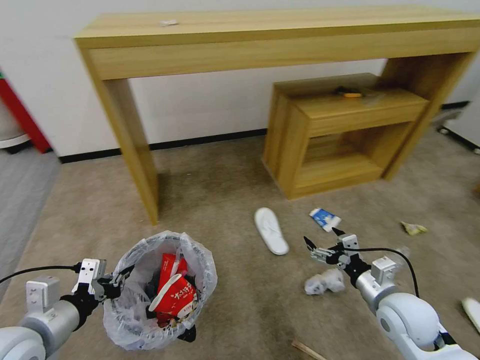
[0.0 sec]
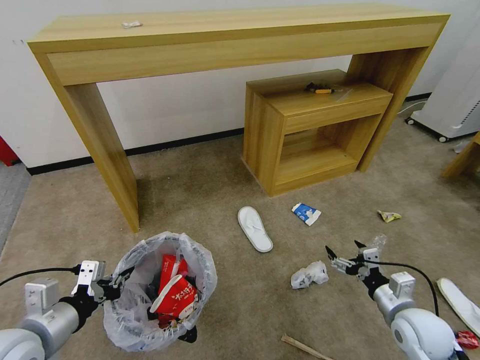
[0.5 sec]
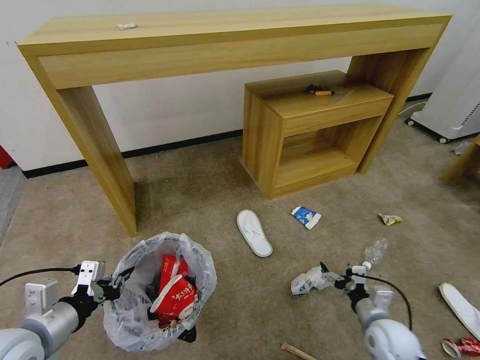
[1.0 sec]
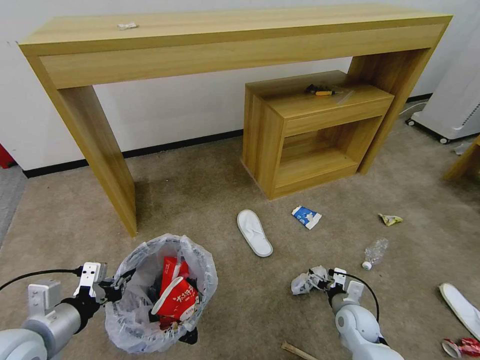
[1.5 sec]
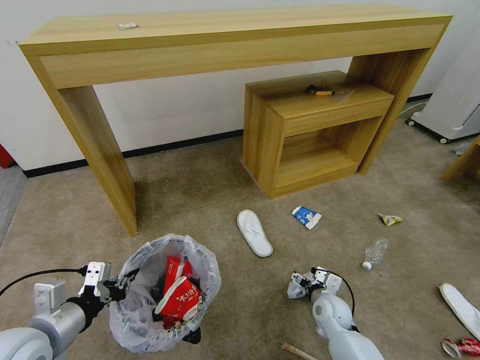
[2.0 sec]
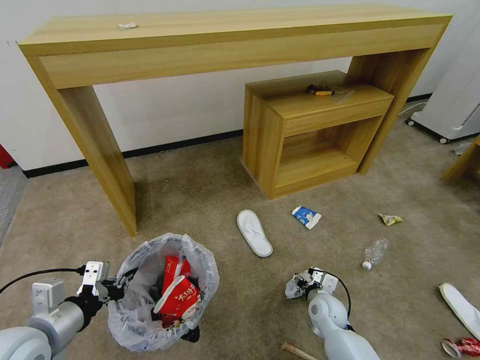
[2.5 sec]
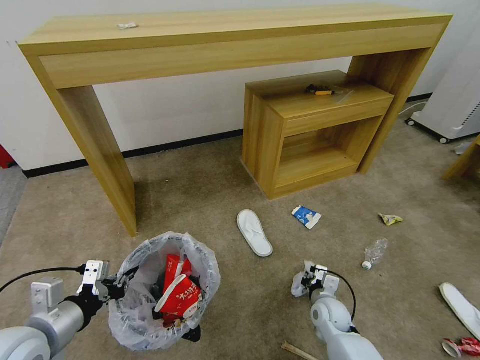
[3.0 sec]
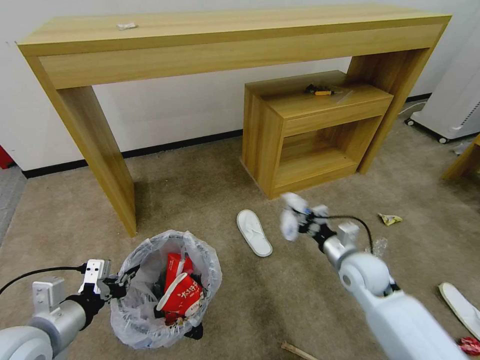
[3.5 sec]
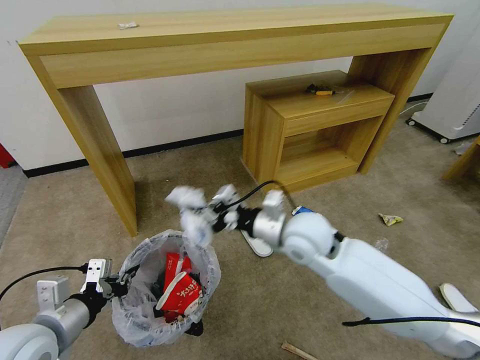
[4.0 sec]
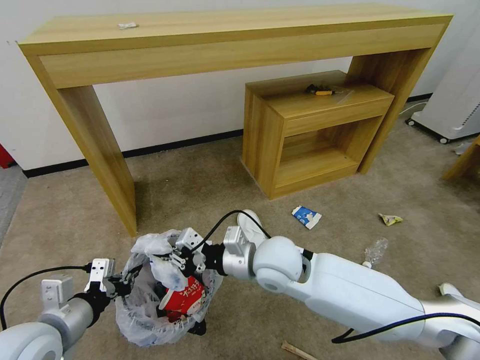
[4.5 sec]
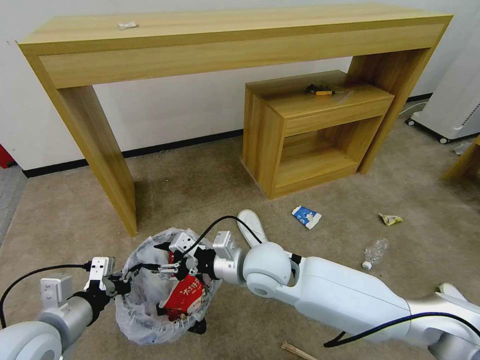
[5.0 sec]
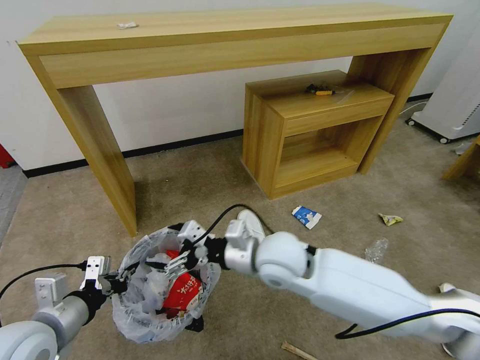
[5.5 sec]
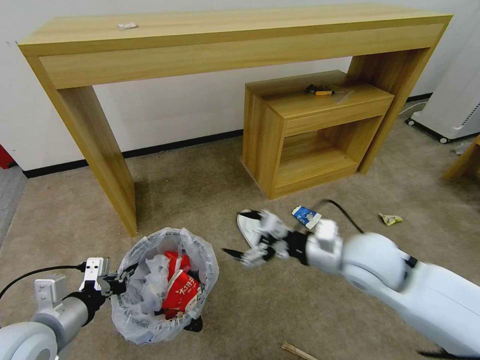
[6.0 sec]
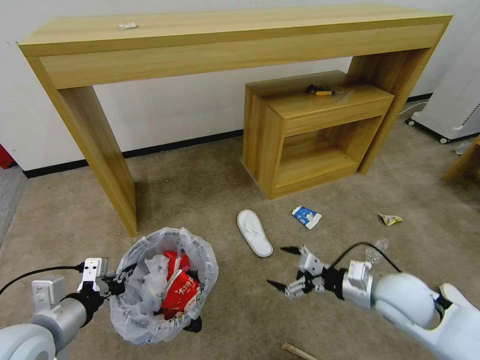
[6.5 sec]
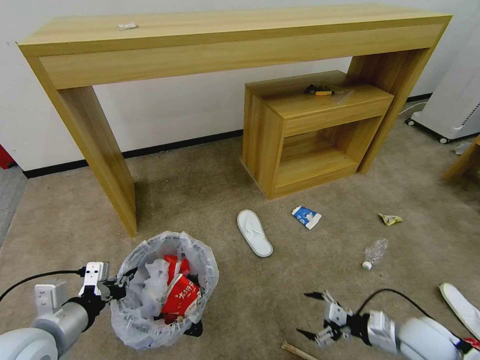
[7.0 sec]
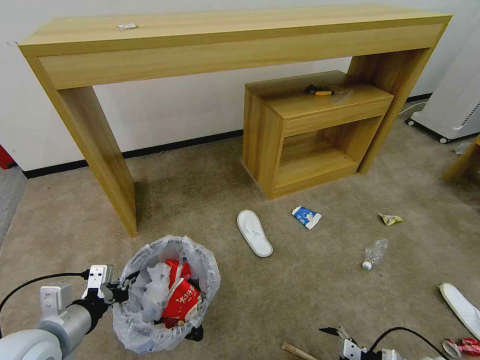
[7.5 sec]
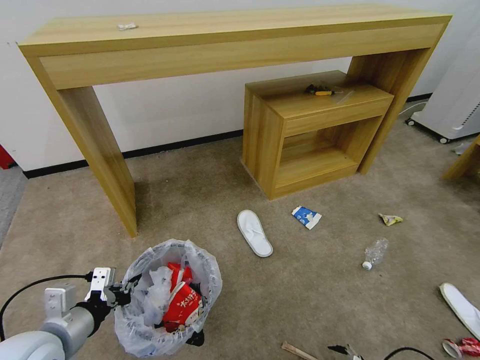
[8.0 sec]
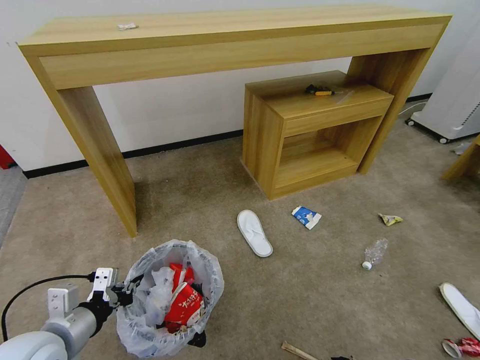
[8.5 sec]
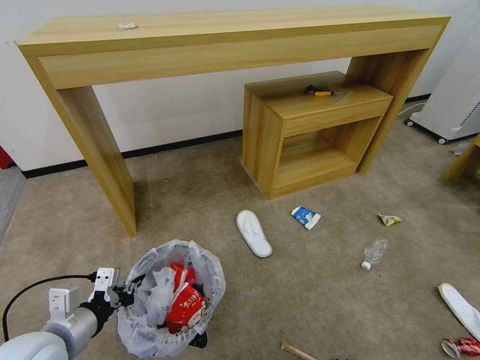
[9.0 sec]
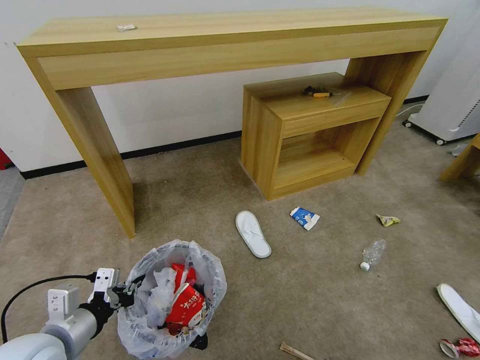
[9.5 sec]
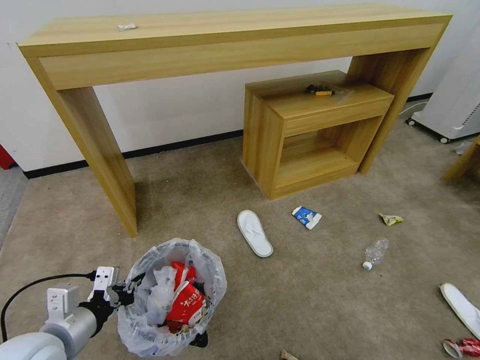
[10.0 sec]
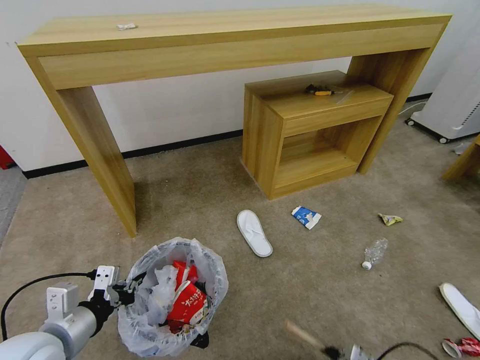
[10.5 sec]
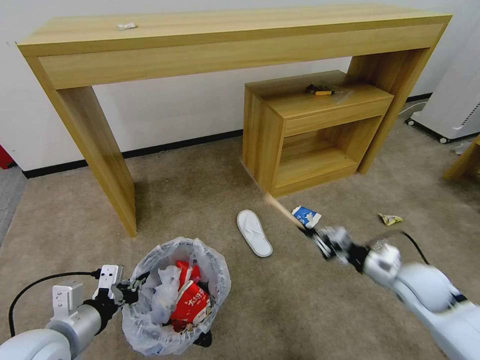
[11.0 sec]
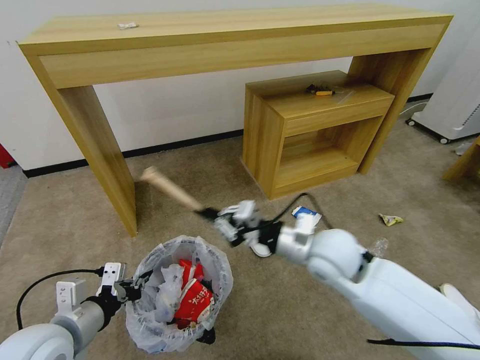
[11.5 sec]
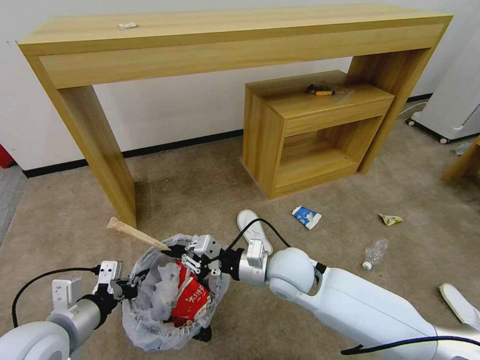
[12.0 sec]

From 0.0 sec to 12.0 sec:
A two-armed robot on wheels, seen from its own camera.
Task of the whole recording: Pick up the trash bin and place the garbage on the floor into it.
From 0.0 sec to 2.0 sec: The right gripper is displaced downward and to the left by roughly 20 cm.
From 2.0 sec to 4.0 sec: The right gripper goes approximately 30 cm upward and to the left, and closes up.
From 4.0 sec to 6.0 sec: The right gripper heads to the right and backward, covering approximately 10 cm, and opens up.
From 6.0 sec to 8.0 sec: The right gripper heads downward, to the right and backward, covering approximately 40 cm.
From 8.0 sec to 10.0 sec: The right gripper ends up some 5 cm from where it was, and closes.
From 10.0 sec to 12.0 sec: The right gripper goes about 50 cm to the left, upward and forward.

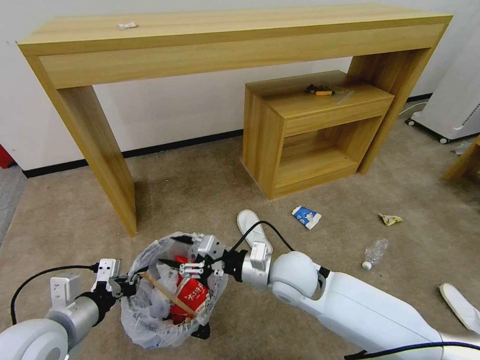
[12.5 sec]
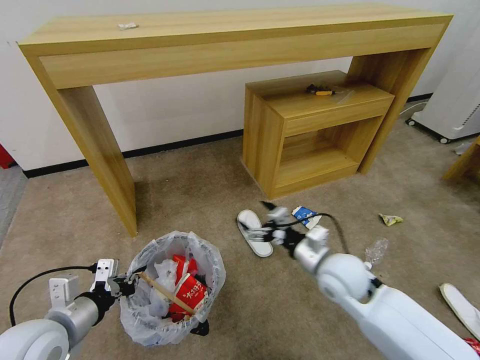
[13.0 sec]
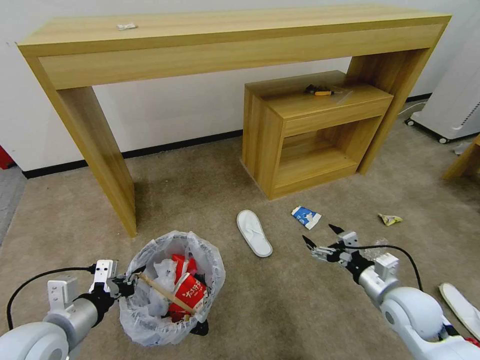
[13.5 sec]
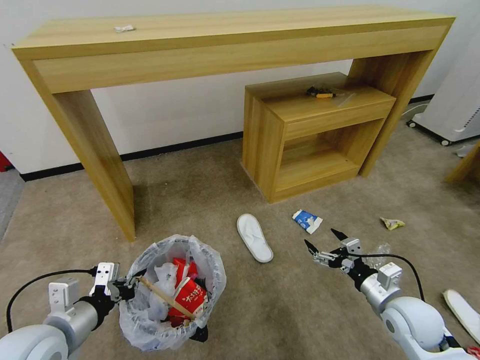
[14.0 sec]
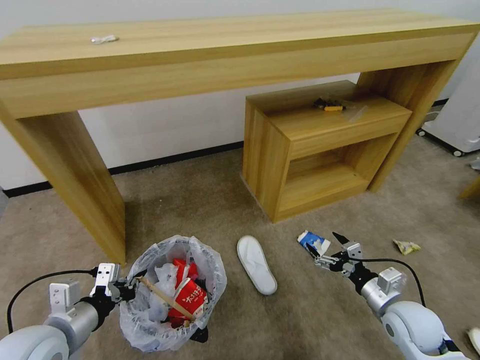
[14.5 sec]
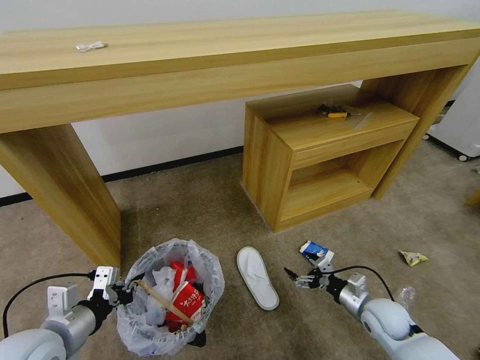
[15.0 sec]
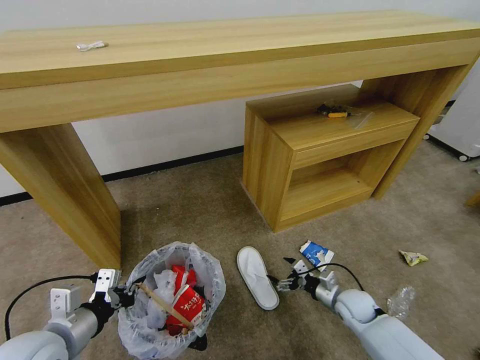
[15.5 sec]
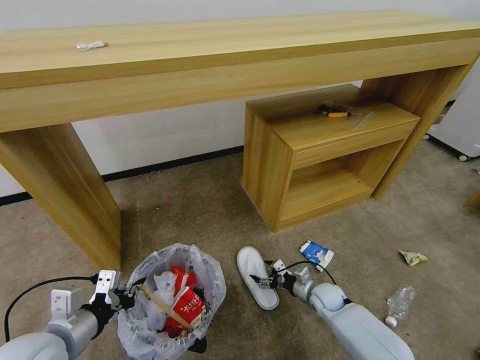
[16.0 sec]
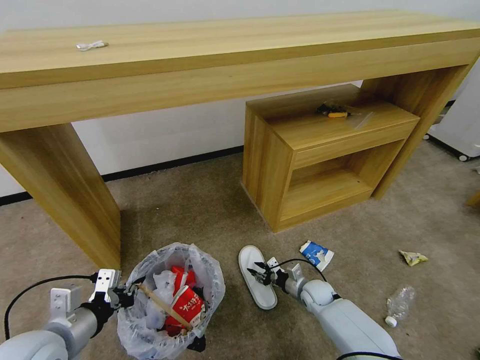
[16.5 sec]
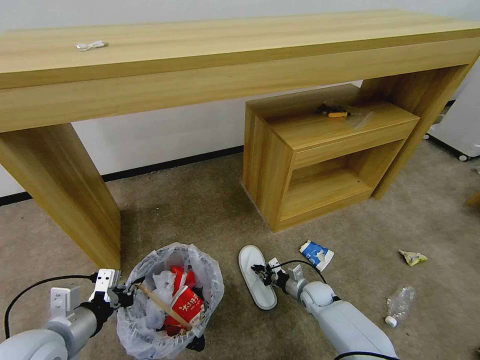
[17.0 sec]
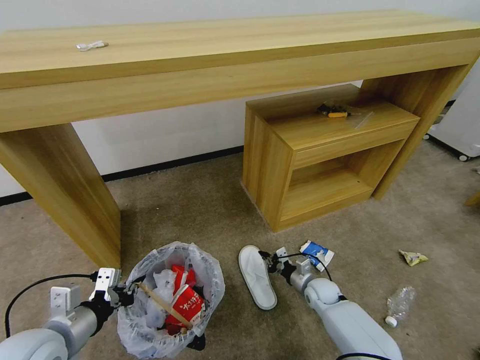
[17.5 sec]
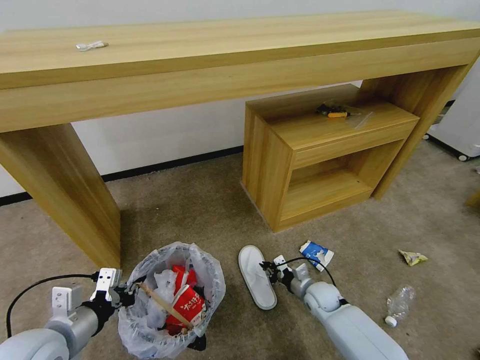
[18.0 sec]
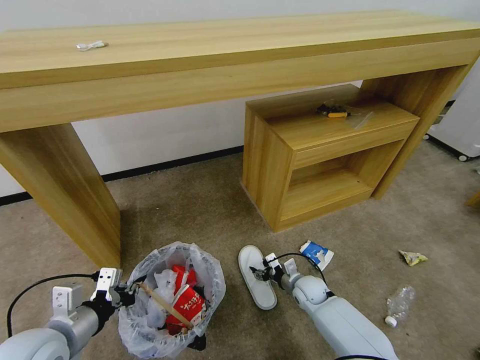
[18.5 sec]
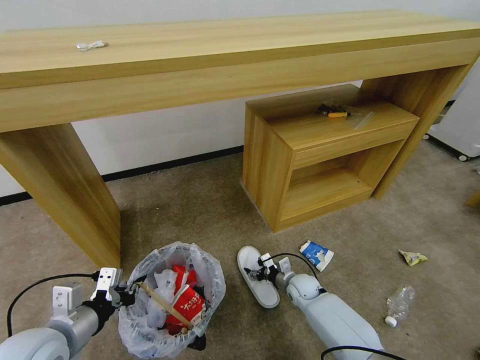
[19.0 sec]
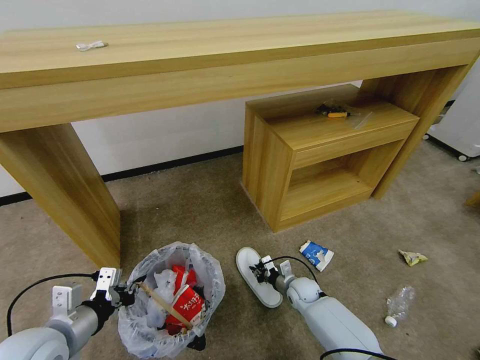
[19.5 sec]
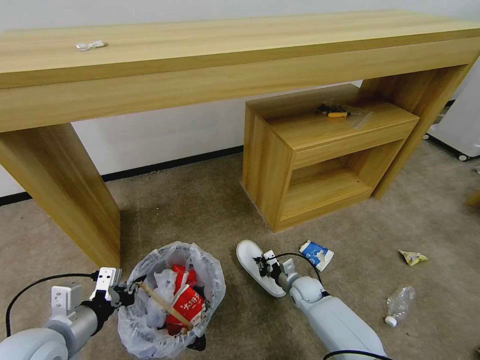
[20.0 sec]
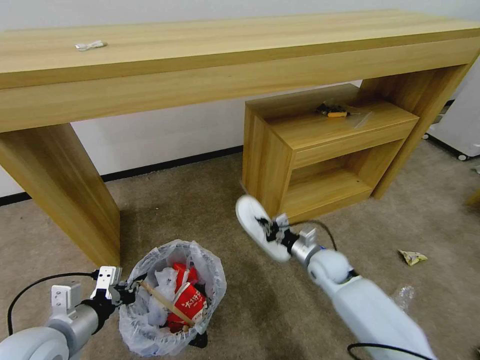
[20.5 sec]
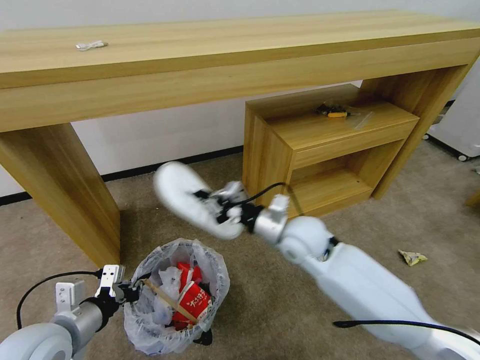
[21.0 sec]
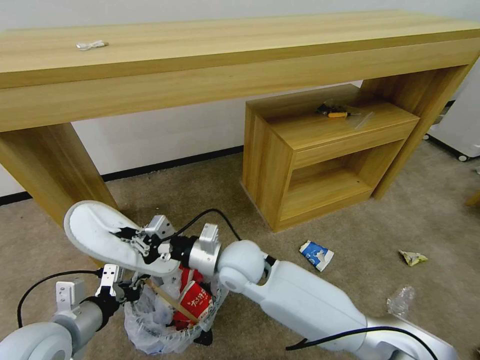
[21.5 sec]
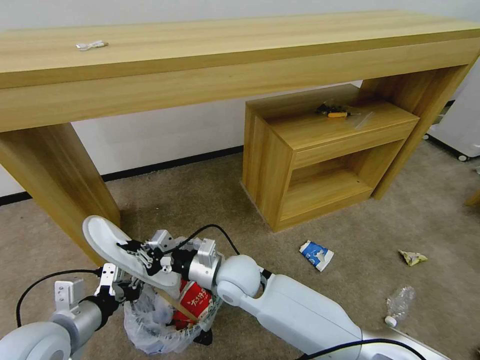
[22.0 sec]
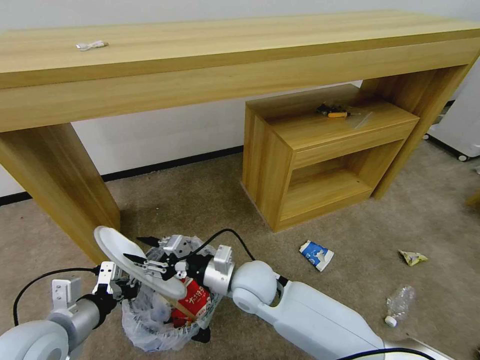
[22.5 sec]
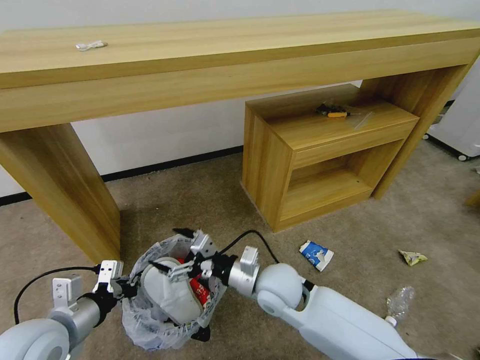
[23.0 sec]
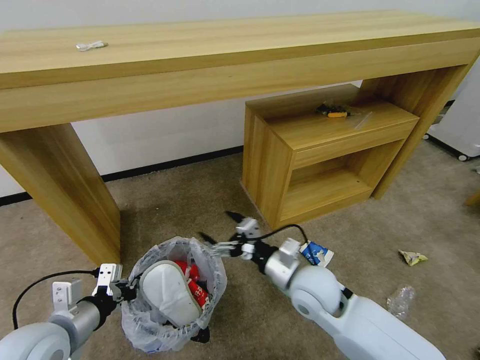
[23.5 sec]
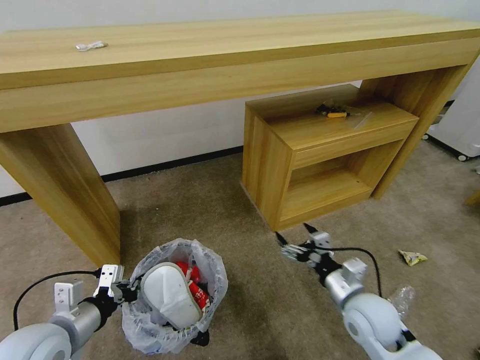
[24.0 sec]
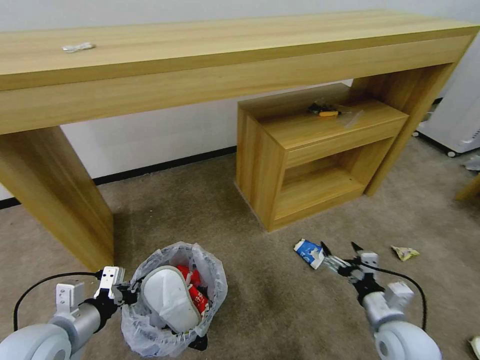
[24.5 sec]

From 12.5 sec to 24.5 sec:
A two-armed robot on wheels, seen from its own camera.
Task of the whole recording: Pick up the trash bin and place the garbage on the floor into it.
From 12.5 sec to 14.5 sec: The right gripper goes roughly 25 cm to the right, and opens up.
From 14.5 sec to 16.5 sec: The right gripper moves downward, forward and to the left, approximately 25 cm, and closes.
From 16.5 sec to 18.5 sec: The right gripper closes, then reopens.
From 18.5 sec to 20.5 sec: The right gripper is displaced upward by about 10 cm, and closes up.
From 20.5 sec to 22.5 sec: The right gripper moves to the left and upward, roughly 25 cm, and opens up.
From 22.5 sec to 24.5 sec: The right gripper goes approximately 30 cm to the right, and opens.

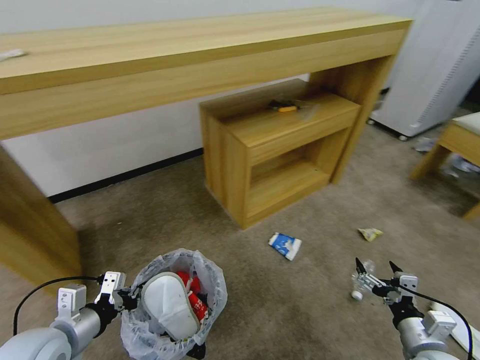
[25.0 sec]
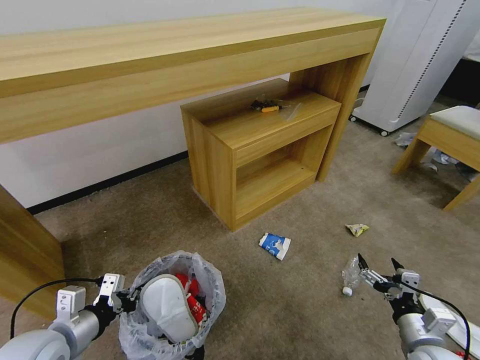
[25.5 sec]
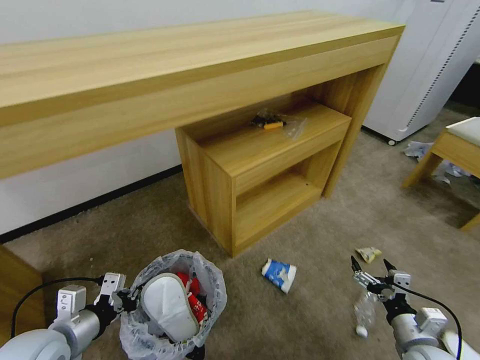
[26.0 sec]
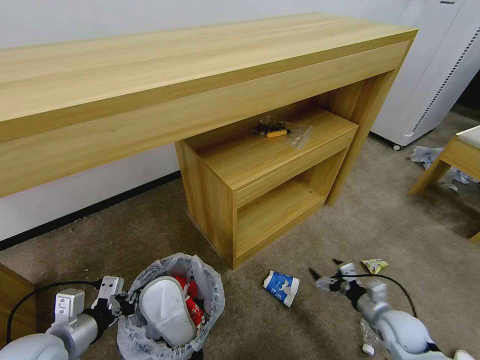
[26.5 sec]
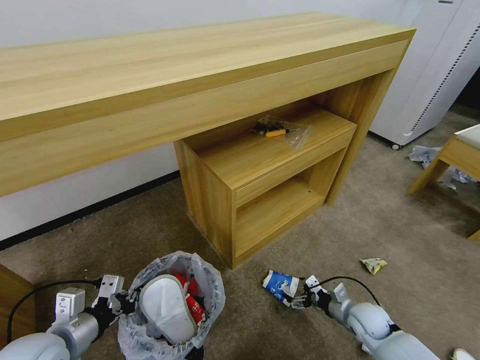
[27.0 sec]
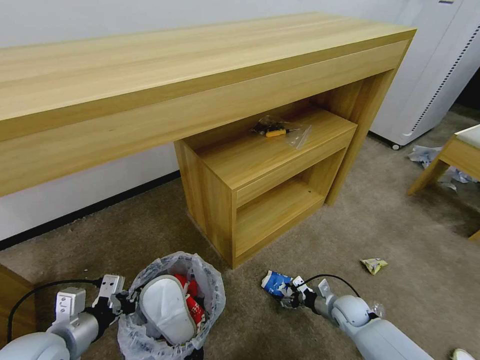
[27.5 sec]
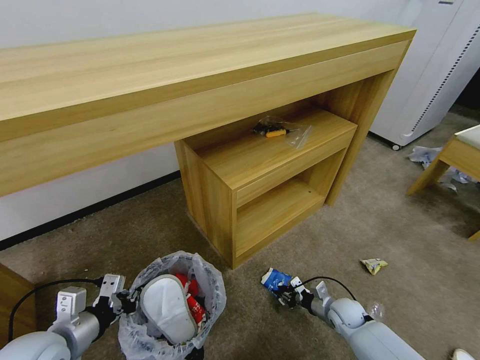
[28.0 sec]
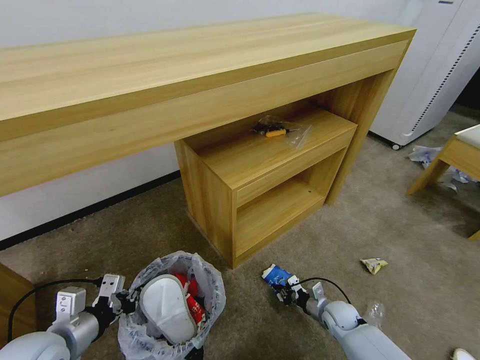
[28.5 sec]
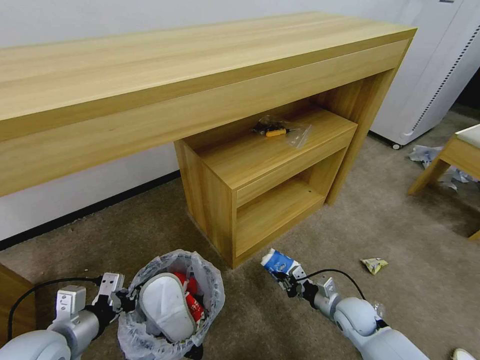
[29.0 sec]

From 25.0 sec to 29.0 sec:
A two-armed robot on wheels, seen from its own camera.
Task of the whole recording: Pick up the trash bin and place the garbage on the floor into it.
From 25.0 sec to 27.0 sec: The right gripper shifts about 15 cm forward and downward.
From 27.0 sec to 29.0 sec: The right gripper goes downward and returns, approximately 5 cm each way, and closes.
